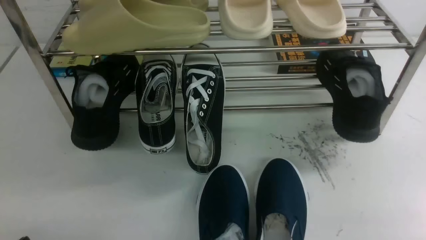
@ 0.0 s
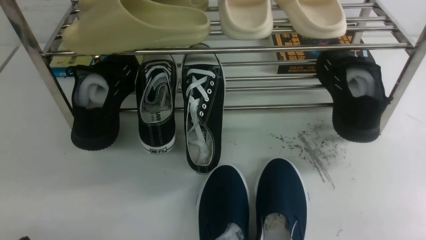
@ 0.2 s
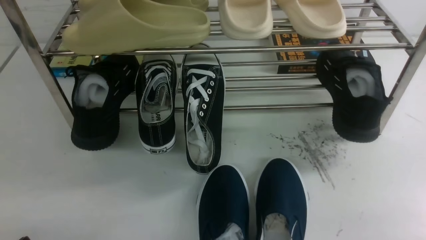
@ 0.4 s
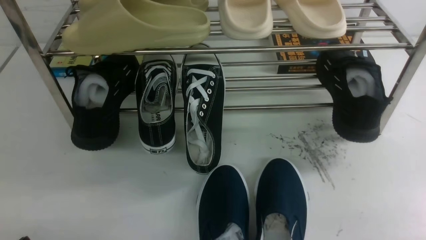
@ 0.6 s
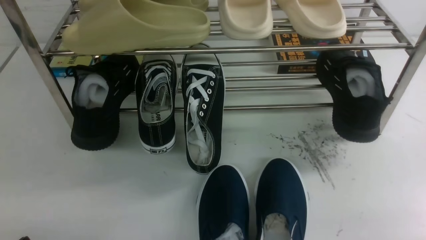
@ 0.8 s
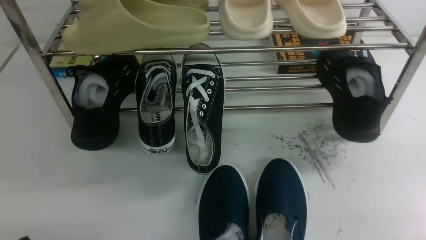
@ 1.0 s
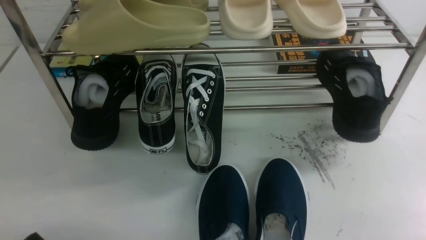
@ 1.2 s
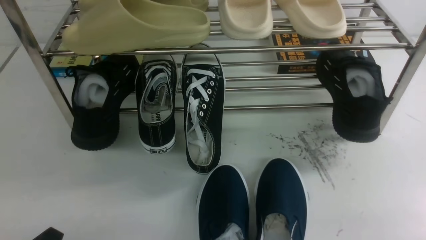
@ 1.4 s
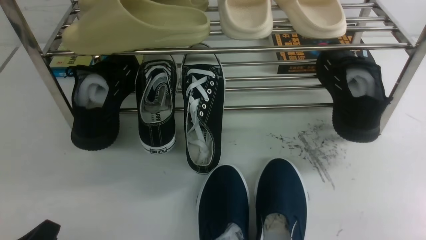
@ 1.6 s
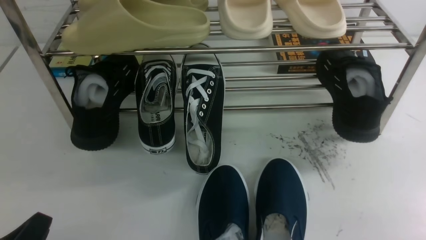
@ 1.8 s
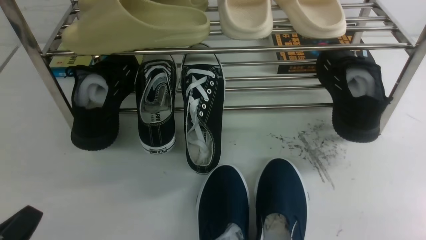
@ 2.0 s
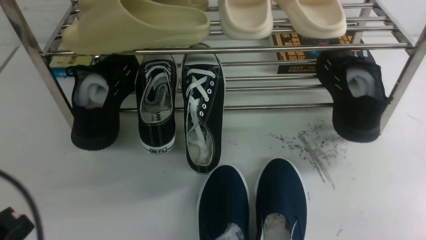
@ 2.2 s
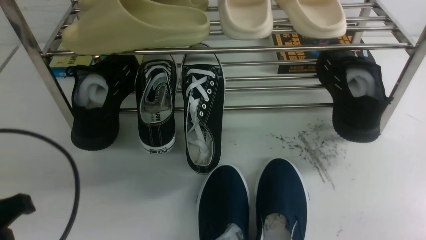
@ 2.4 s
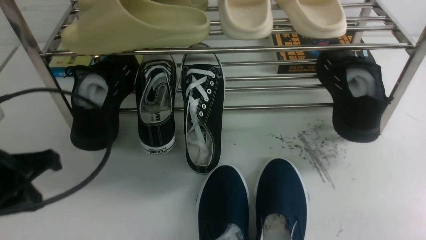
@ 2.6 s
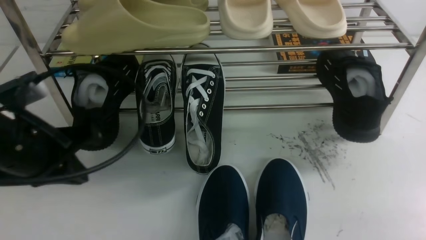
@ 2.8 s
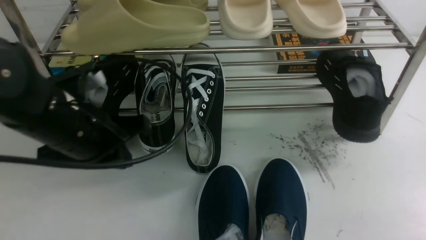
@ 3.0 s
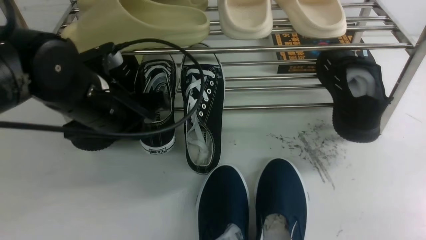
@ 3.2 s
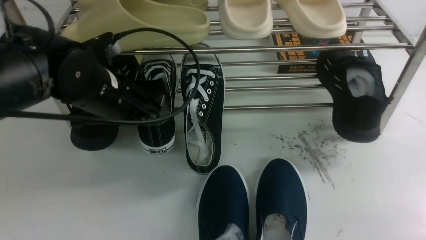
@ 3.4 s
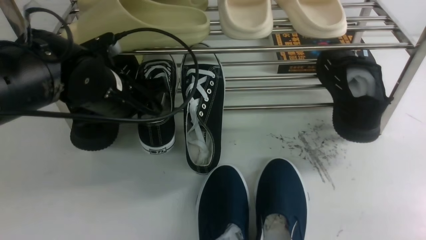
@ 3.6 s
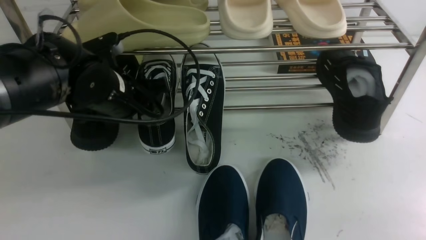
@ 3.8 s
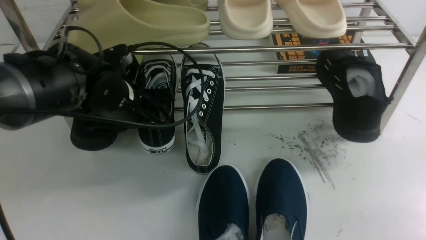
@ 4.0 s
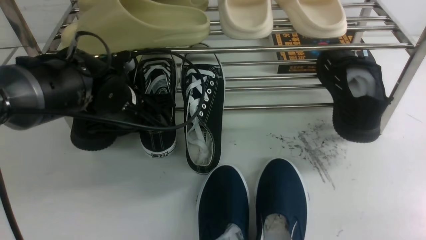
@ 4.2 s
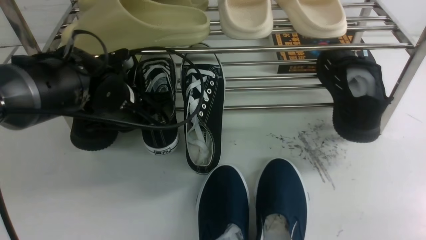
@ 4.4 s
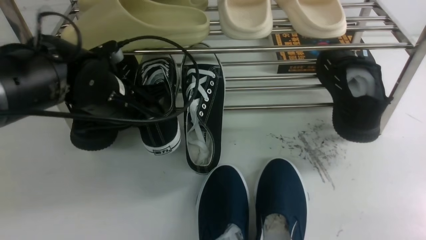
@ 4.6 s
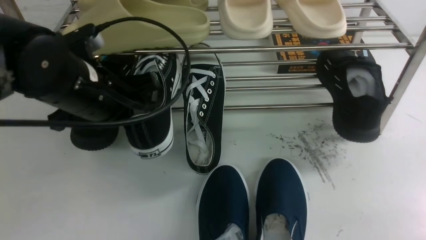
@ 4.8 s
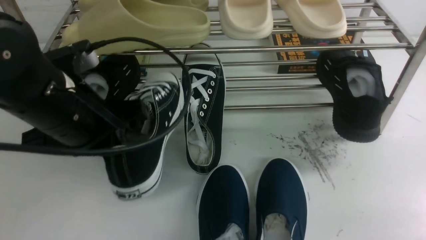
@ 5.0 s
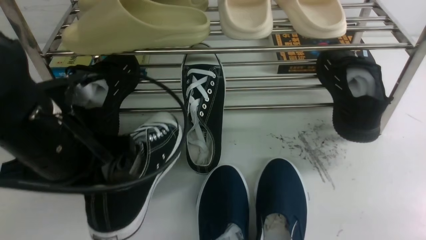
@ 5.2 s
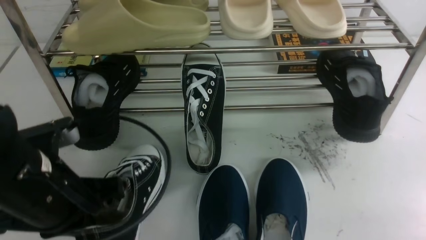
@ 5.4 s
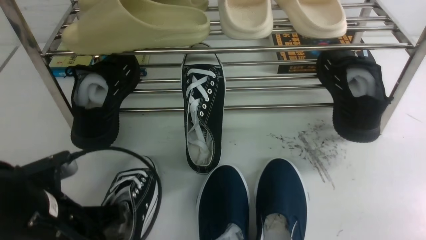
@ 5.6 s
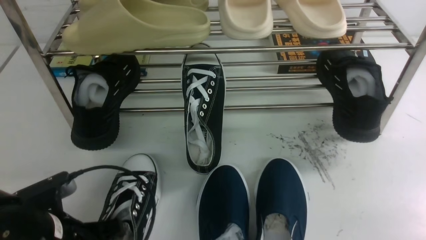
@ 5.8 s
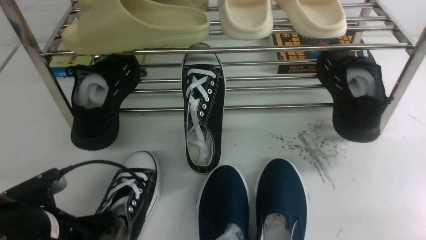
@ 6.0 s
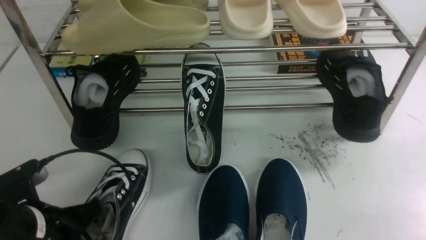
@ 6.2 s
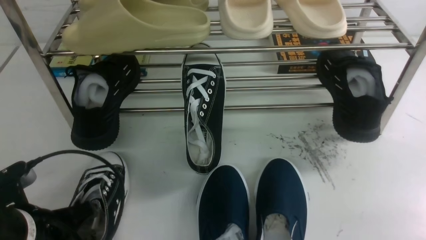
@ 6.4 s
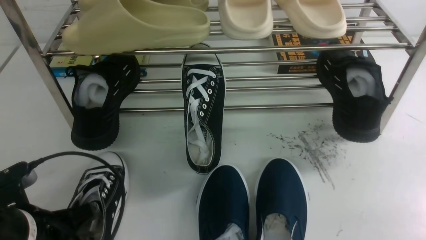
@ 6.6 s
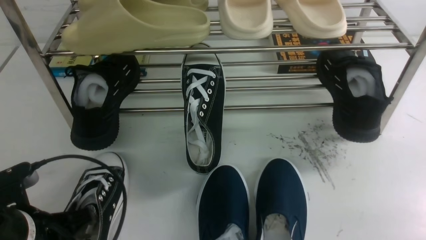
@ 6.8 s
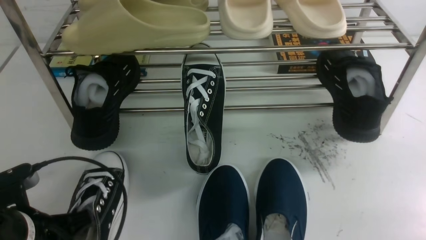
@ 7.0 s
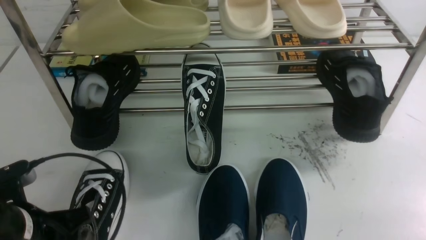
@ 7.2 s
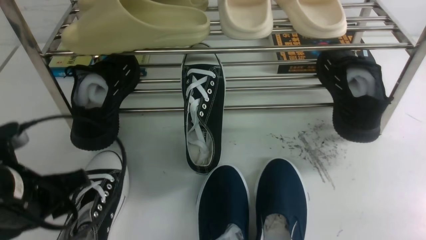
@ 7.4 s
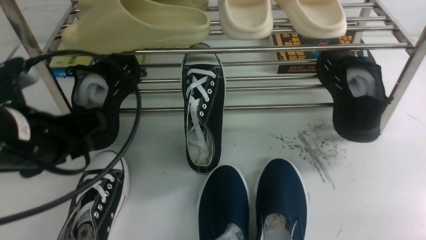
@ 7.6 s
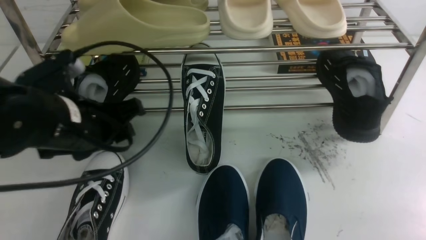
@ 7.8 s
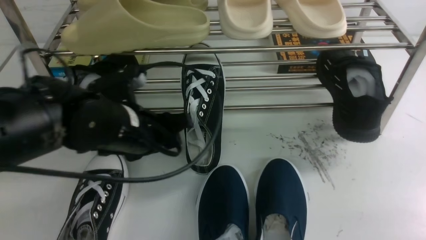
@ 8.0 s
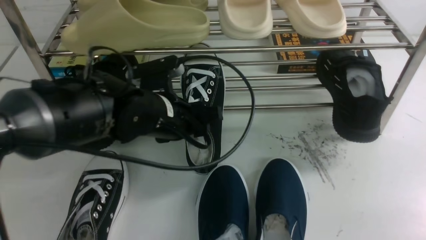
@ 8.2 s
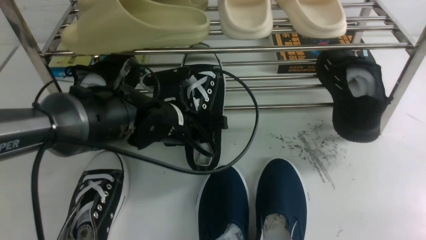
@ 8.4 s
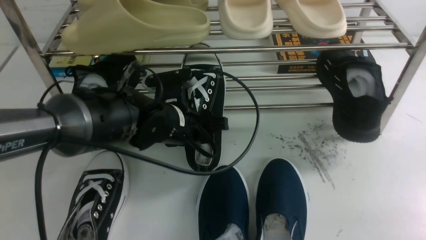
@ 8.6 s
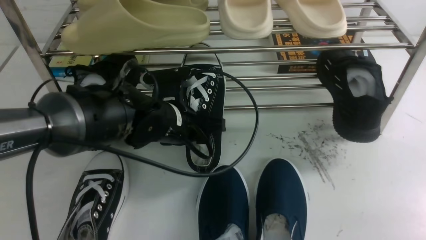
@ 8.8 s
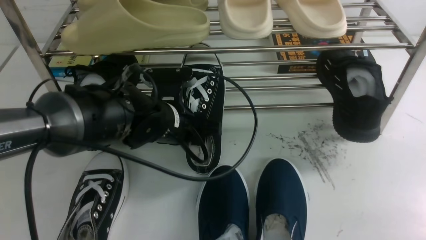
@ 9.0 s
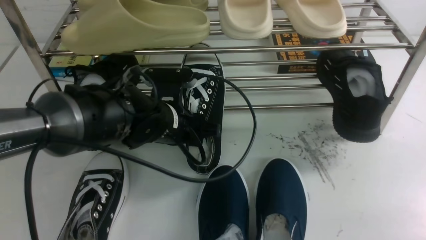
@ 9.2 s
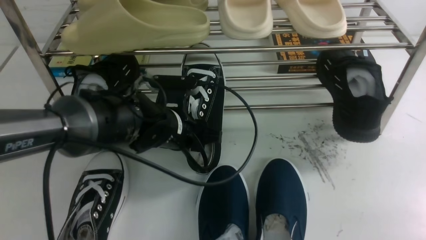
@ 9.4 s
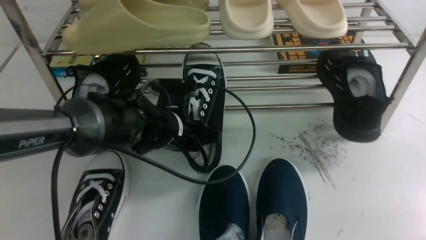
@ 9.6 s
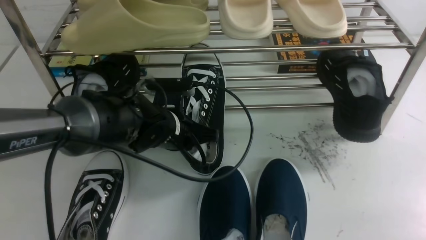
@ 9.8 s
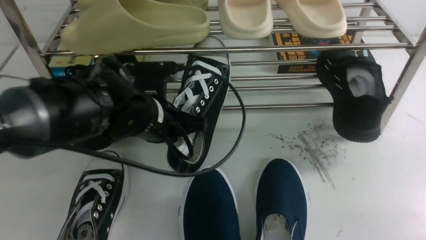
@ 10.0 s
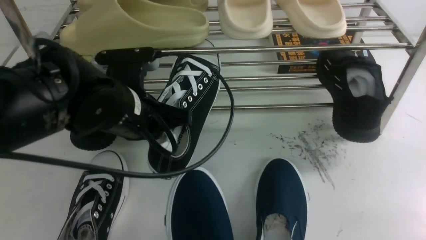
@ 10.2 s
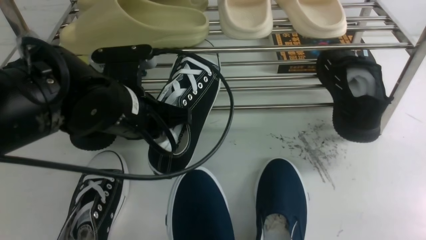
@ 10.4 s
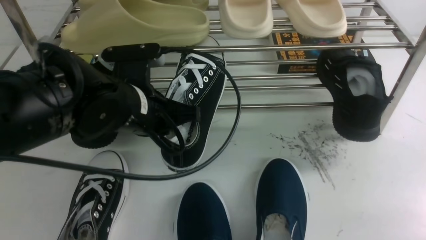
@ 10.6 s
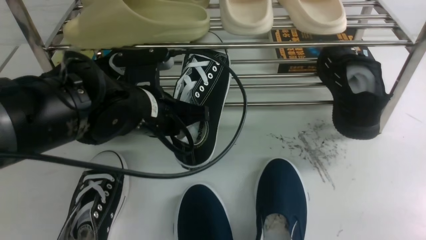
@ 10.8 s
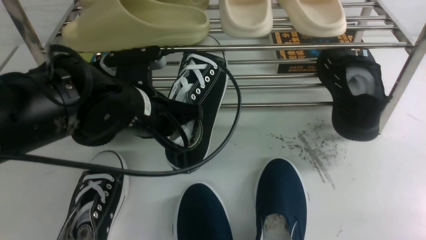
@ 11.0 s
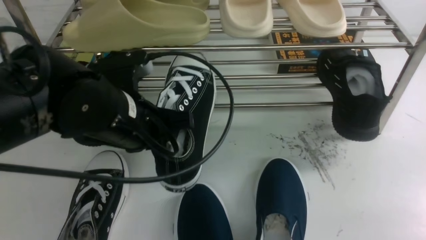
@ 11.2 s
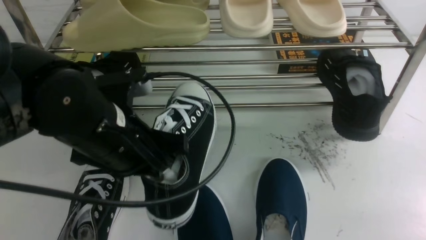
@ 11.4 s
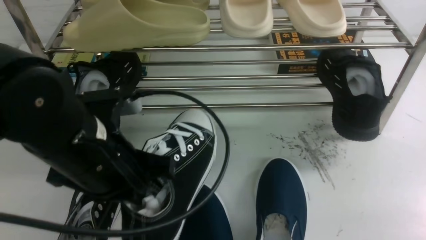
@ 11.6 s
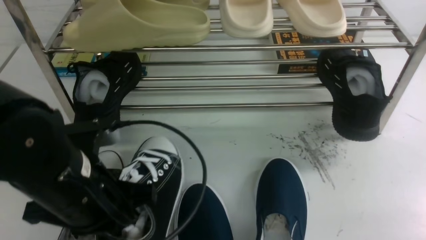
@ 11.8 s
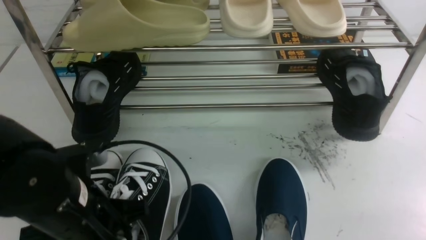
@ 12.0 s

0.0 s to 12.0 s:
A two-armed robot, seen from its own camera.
Step, 0.0 to 4.8 s: use the left arm to clamp a shoe on the left side of the shoe rack.
Step, 5.0 to 7.4 s: Use your left arm to remove the clamped shoe from the shoe rack and put it down.
Step, 7.6 to 10.2 s: use the left arm to clamp a shoe in the middle of the shoe rack.
1.6 to 3.0 s: The left gripper heads forward, upward and to the right, covering some 25 cm, and closes its fingers. Meanwhile the right gripper opens its fingers.
3.0 to 4.4 s: The left gripper is displaced forward by about 10 cm, and opens and closes again.
4.4 to 6.0 s: The left gripper travels backward and to the left by roughly 20 cm.
6.0 to 7.6 s: The left gripper heads upward, covering approximately 10 cm, and opens up.
7.6 to 9.0 s: The left gripper heads to the right, forward and downward, covering approximately 15 cm.
9.0 to 10.4 s: The left gripper is displaced upward by roughly 5 cm, and closes up.
10.4 to 12.0 s: The left gripper moves backward, about 10 cm.

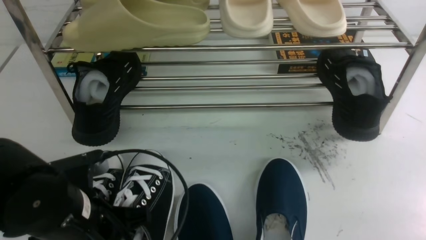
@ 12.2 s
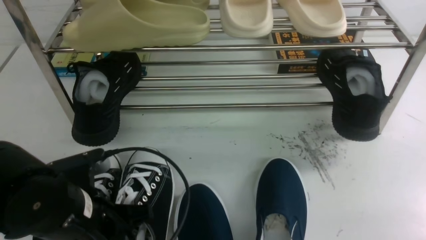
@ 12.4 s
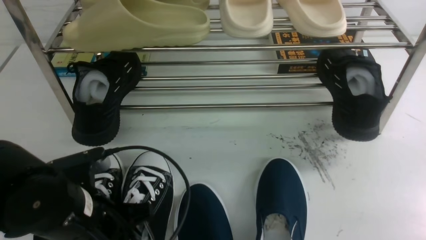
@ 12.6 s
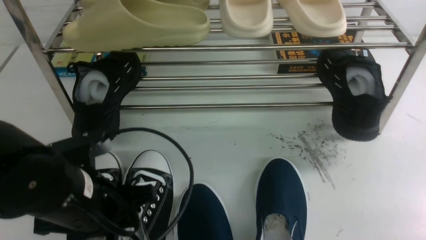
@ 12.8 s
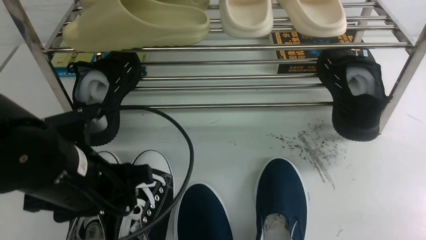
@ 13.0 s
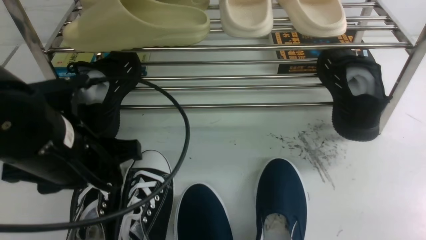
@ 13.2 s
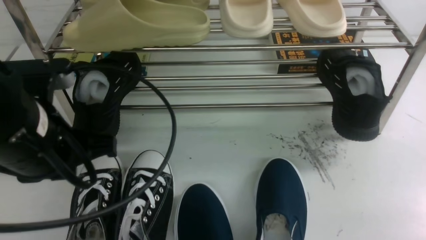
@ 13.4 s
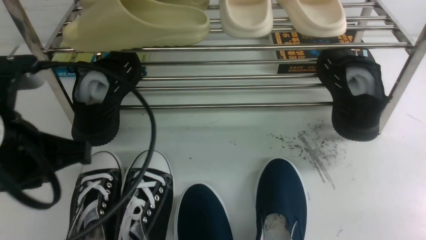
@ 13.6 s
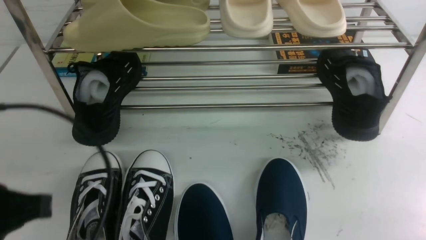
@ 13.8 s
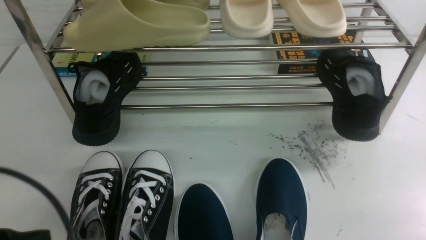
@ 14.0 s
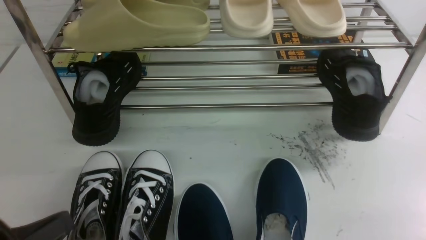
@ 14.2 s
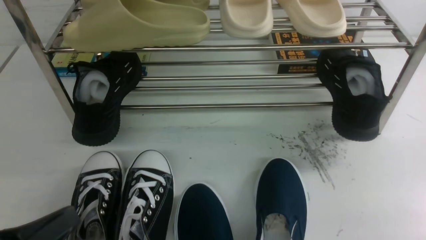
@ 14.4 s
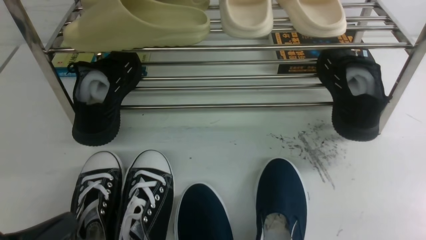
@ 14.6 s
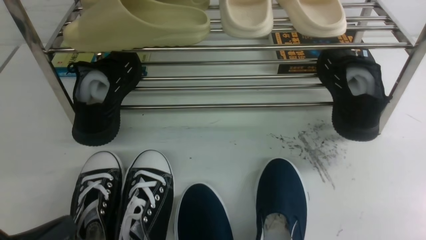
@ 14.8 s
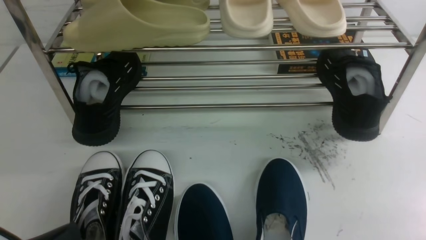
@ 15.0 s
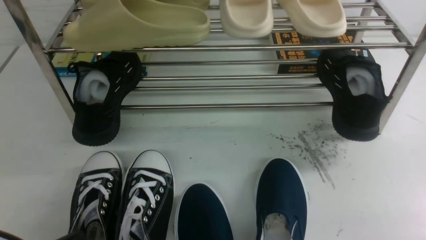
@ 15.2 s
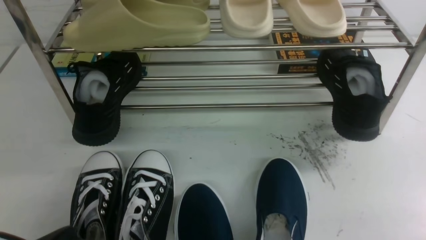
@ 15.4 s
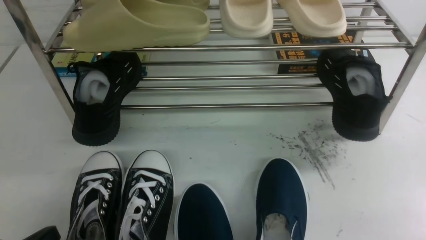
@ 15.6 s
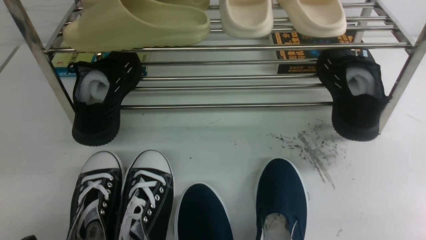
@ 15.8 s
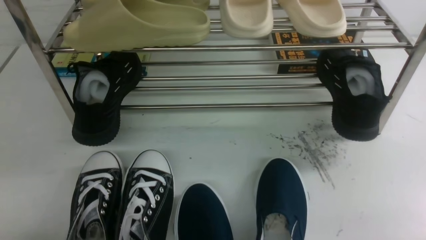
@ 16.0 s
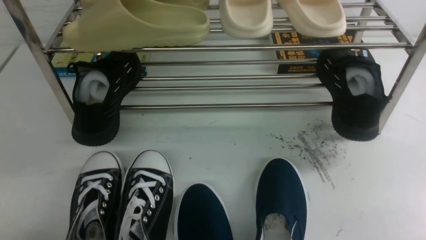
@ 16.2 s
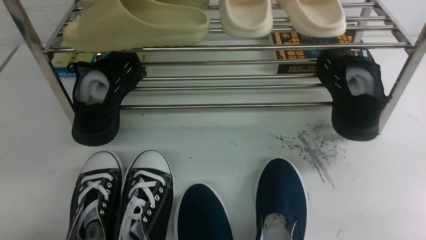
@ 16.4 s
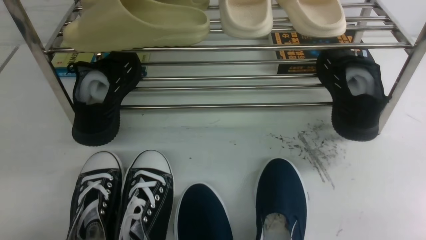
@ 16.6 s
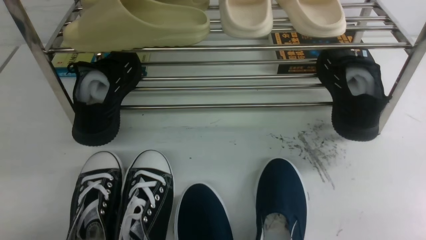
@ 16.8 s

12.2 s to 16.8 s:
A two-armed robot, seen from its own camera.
12.2 to 13.8 s: The left gripper heads upward, to the left and backward, covering some 15 cm, and opens and closes again.
13.8 to 15.2 s: The left gripper goes roughly 10 cm downward.
